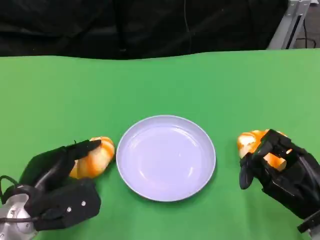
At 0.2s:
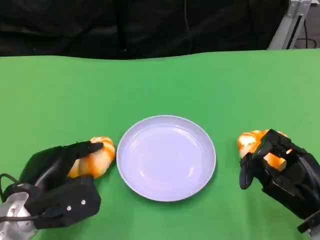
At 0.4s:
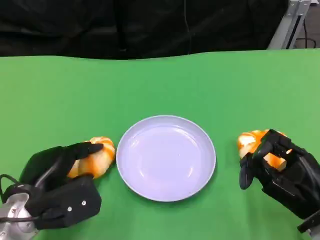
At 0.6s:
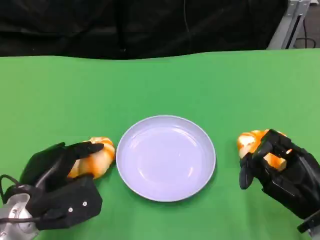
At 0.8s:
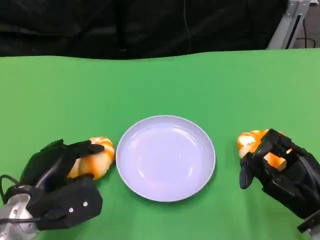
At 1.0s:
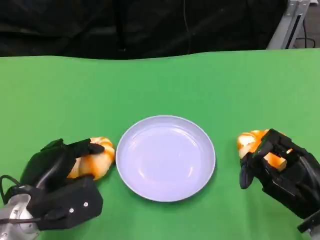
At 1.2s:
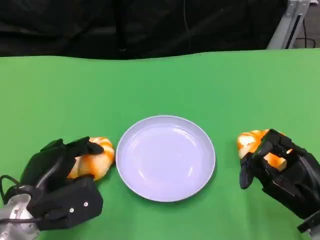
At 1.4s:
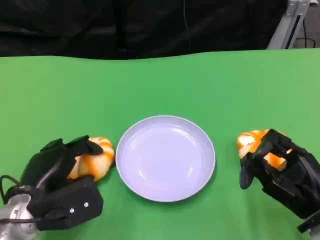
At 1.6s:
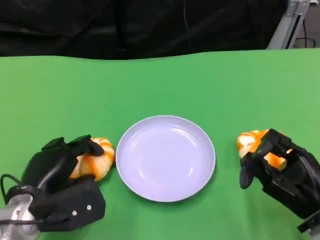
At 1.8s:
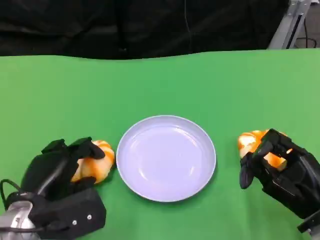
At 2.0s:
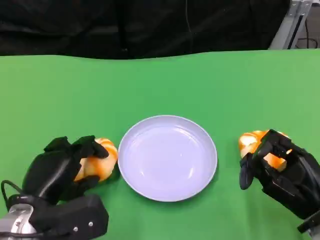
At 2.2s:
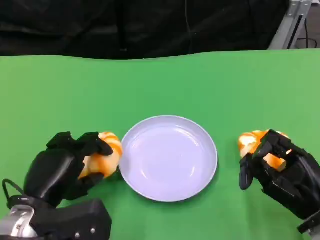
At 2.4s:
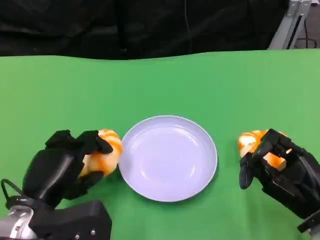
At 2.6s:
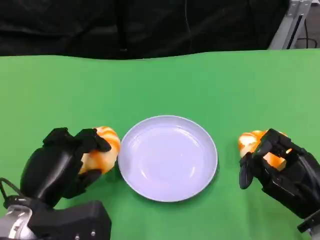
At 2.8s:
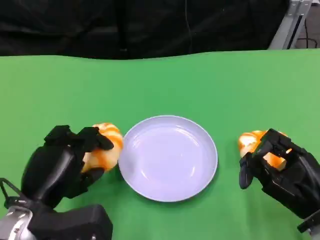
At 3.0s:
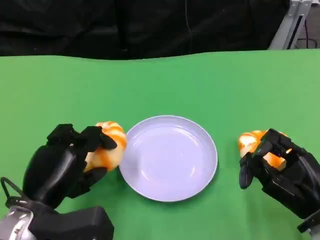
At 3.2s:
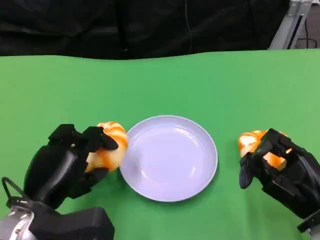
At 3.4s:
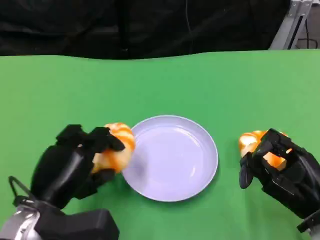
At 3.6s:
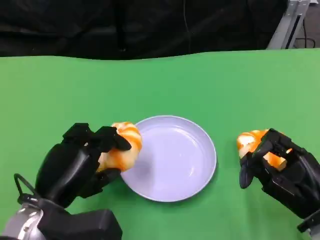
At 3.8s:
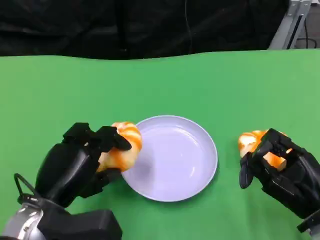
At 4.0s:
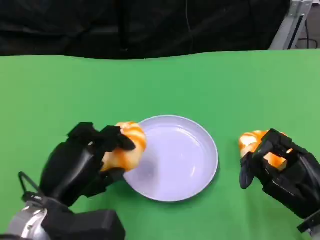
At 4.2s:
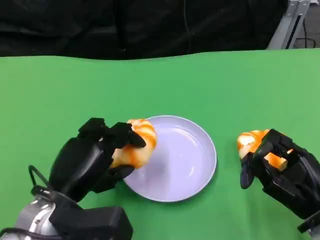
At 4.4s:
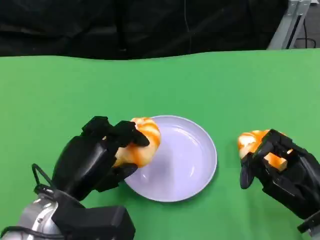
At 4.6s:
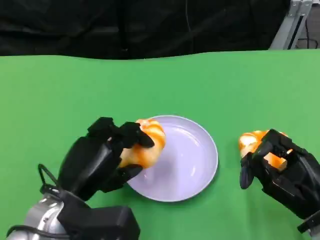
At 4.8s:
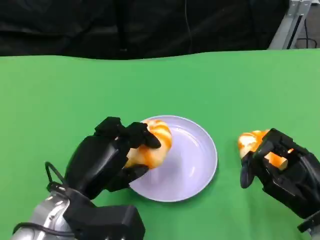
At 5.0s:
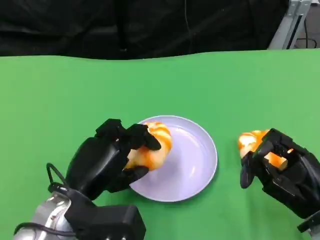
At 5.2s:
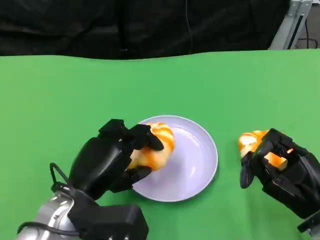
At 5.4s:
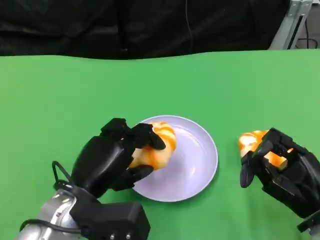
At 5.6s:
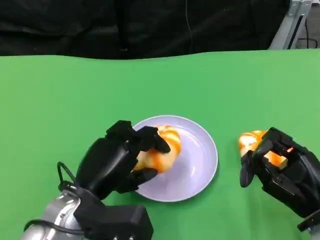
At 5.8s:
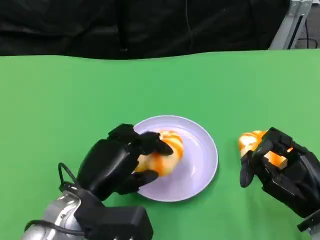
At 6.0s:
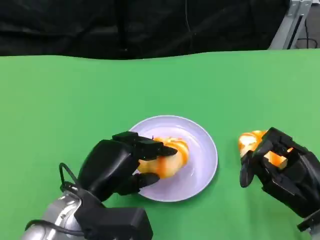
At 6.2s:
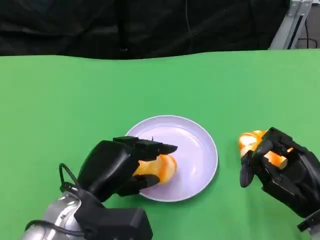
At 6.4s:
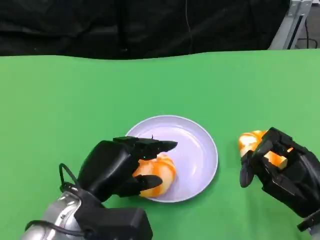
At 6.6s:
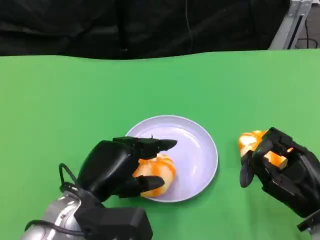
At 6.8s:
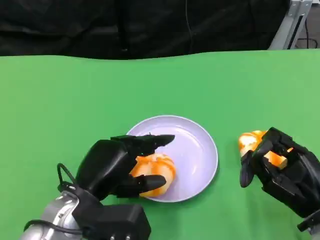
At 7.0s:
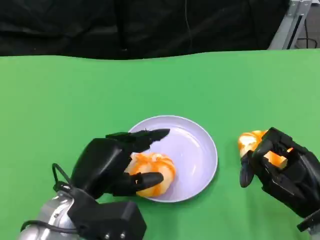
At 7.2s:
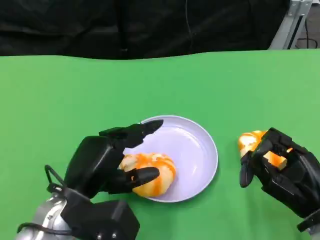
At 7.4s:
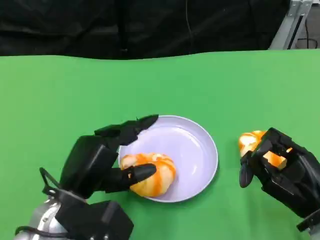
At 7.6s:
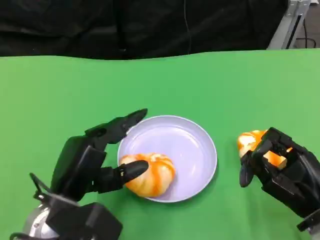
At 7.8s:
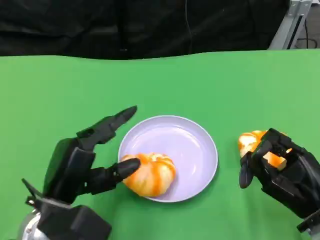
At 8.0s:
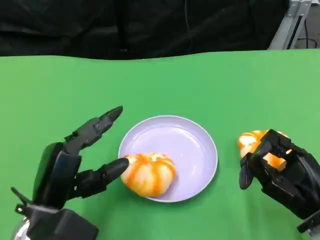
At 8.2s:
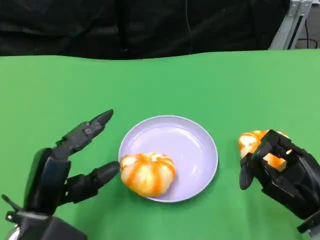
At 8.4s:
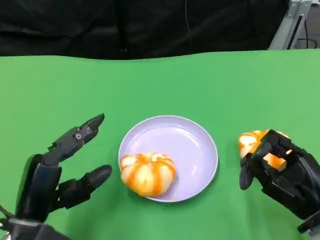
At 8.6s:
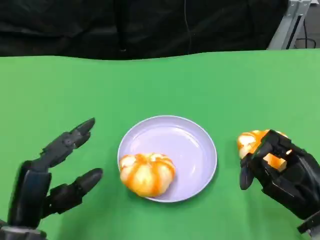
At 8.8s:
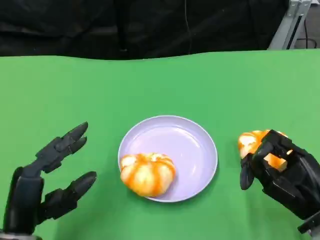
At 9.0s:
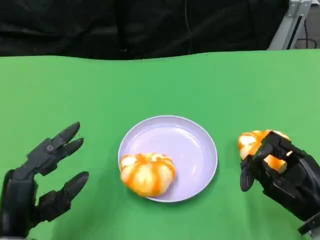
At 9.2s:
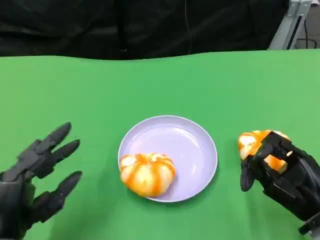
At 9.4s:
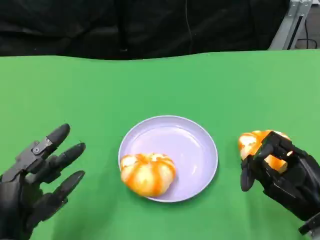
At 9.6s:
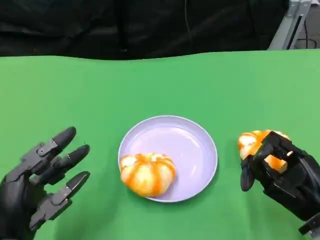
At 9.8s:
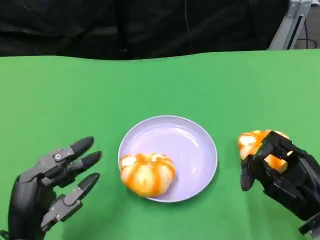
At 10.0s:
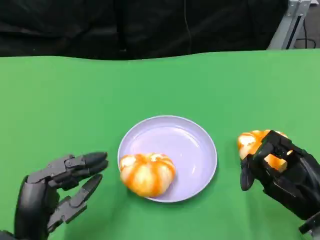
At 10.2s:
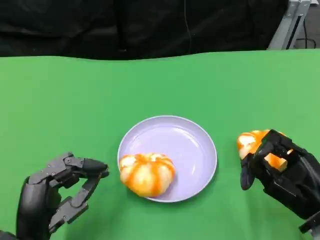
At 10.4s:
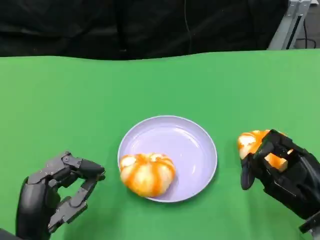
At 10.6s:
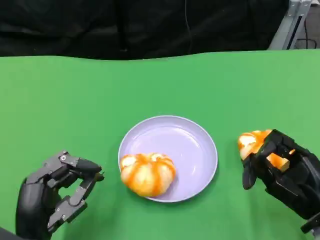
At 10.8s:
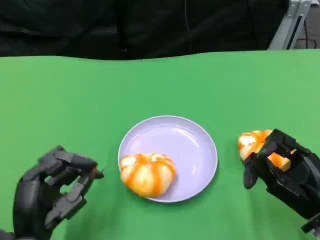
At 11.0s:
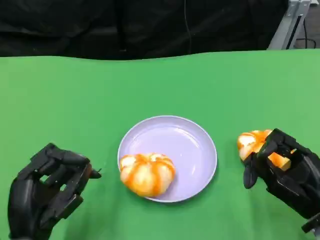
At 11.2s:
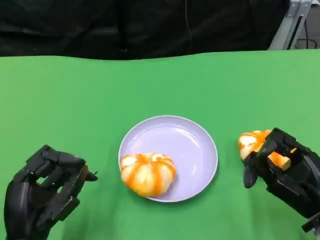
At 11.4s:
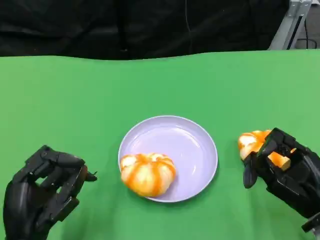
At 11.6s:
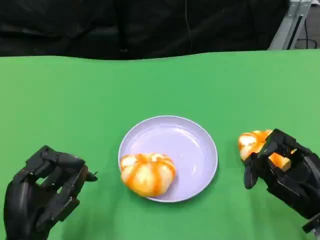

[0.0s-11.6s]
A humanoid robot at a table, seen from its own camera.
Task of the whole recording: Grasp the bread from the table and place it into the plate.
0.0s to 1.4s: Neither hand changes place.
1.4s to 2.8s: There are only small adjustments of the hands.
2.8s to 7.2s: The hands make only small movements.
7.2s to 8.8s: The left hand heads to the left, covering roughly 5 cm.
10.2s to 11.6s: The hands make only small movements.

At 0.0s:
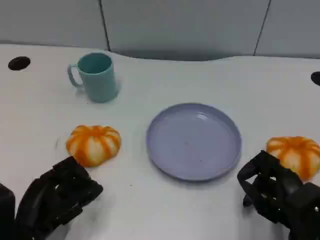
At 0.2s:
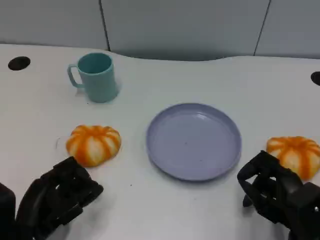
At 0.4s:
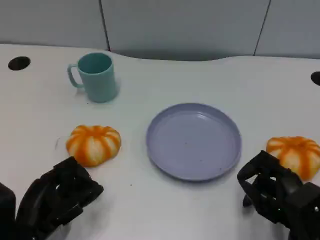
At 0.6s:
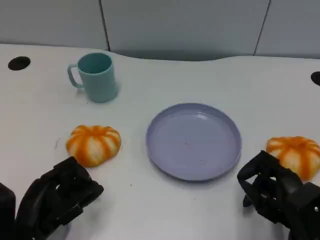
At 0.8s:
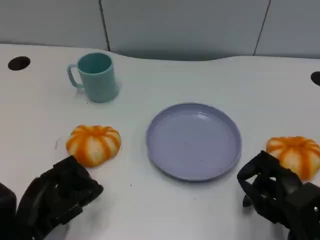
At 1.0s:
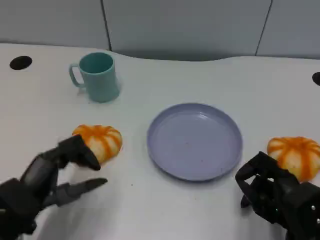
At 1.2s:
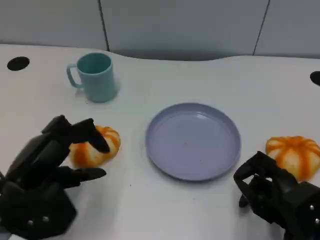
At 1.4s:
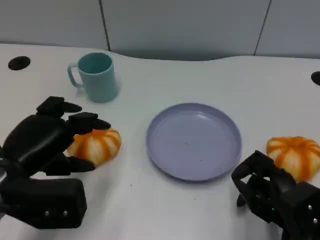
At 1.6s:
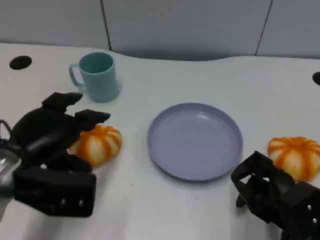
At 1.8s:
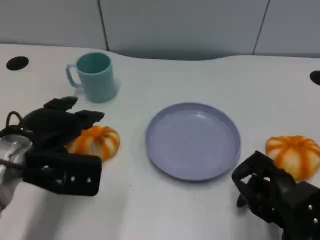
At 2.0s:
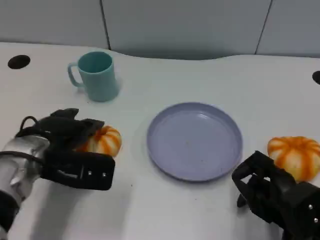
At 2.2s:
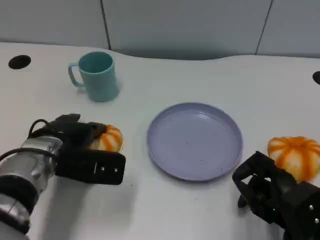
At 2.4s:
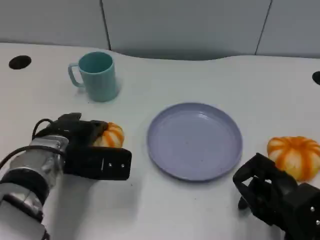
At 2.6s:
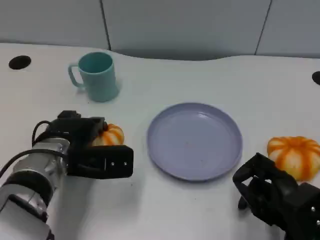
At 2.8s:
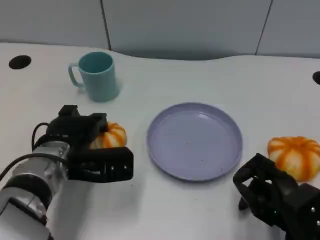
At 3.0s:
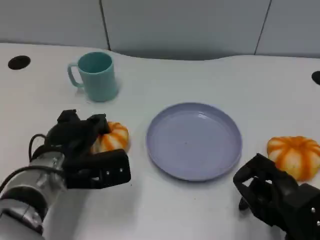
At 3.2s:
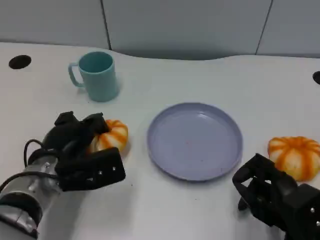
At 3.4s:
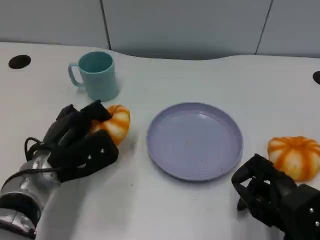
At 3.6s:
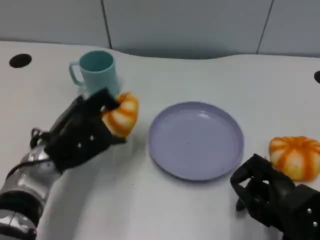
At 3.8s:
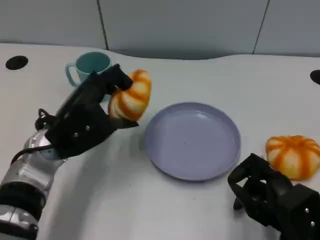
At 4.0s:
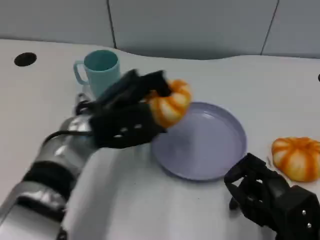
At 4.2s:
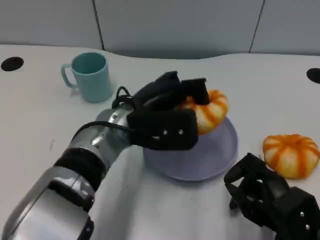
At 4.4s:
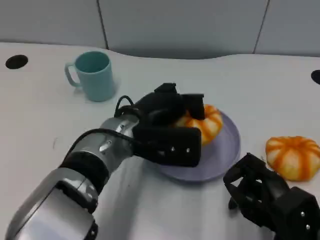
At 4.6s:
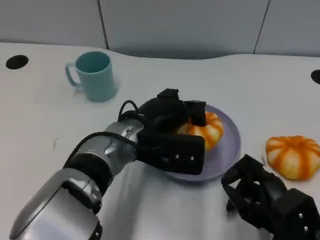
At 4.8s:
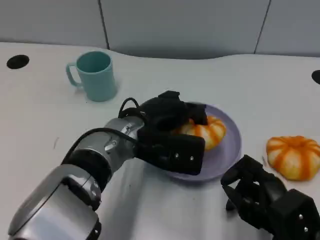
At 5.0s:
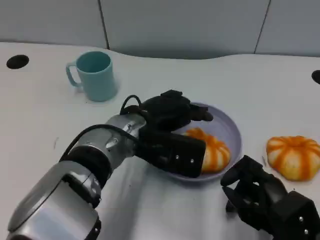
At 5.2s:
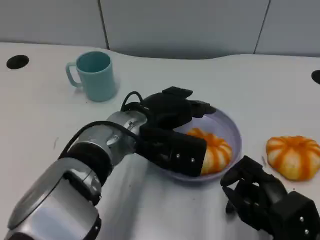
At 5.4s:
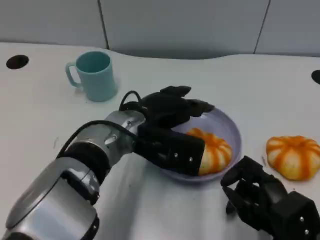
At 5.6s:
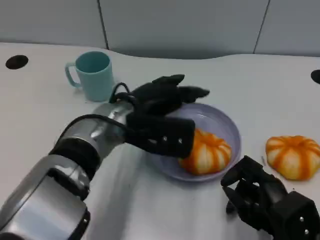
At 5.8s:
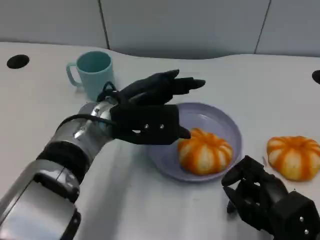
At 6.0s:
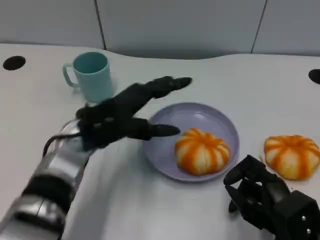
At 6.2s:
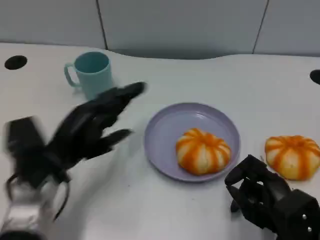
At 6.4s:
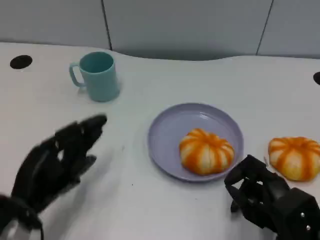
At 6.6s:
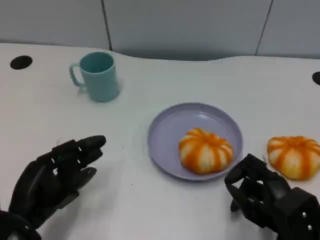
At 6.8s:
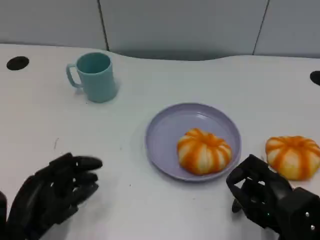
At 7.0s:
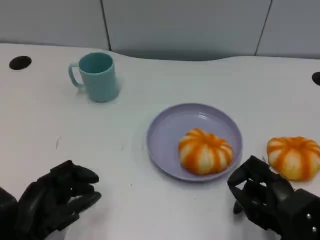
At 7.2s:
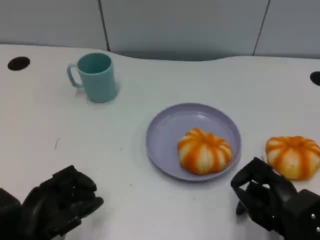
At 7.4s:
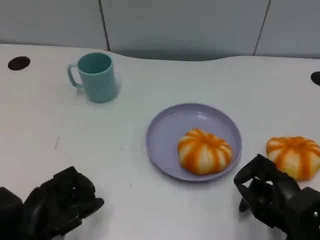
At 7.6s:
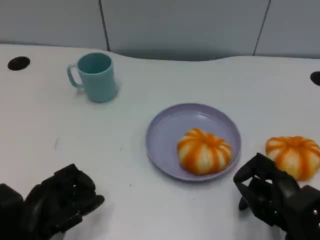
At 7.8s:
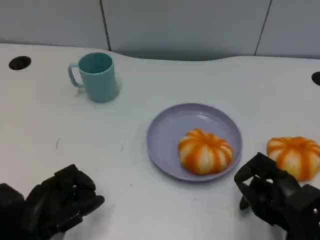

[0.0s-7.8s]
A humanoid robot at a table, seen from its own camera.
Task of the whole recording: Grasp the bread from the table and place it into the plate.
0.0s to 1.6s: The left hand is displaced upward and forward by some 15 cm.
1.6s to 3.2s: The left hand shifts some 10 cm downward.
3.2s to 4.6s: The left hand goes about 15 cm to the right and upward.
4.6s to 6.2s: The left hand is displaced to the left by roughly 15 cm.
6.2s to 7.8s: The left hand goes roughly 10 cm backward and downward.

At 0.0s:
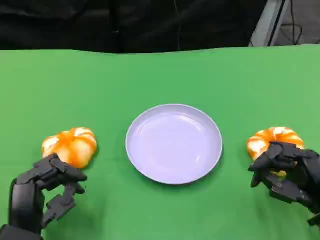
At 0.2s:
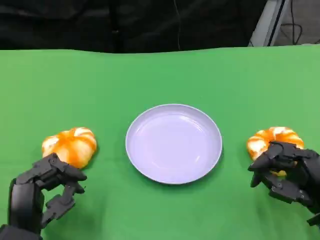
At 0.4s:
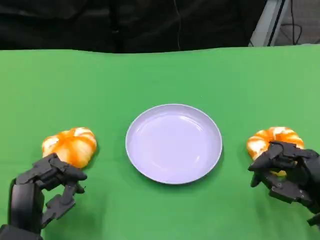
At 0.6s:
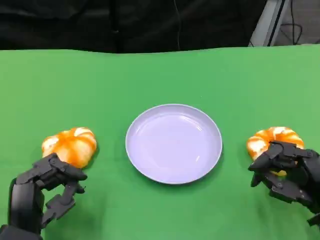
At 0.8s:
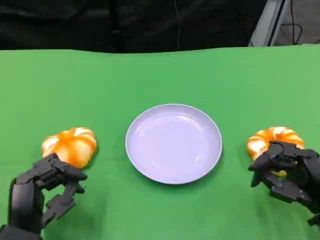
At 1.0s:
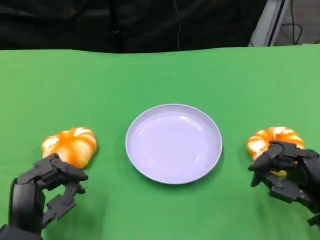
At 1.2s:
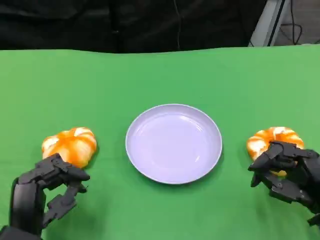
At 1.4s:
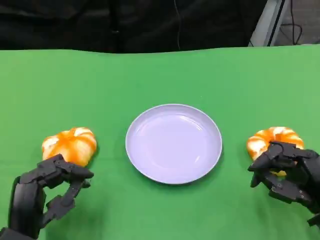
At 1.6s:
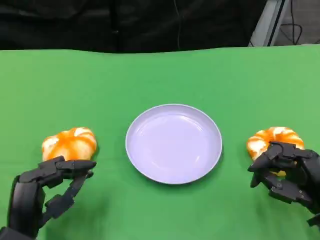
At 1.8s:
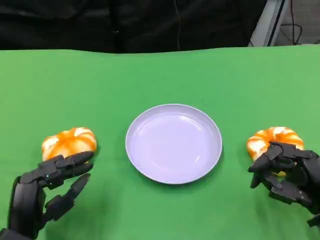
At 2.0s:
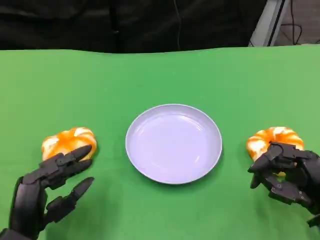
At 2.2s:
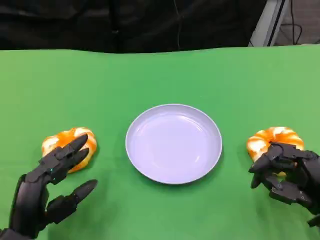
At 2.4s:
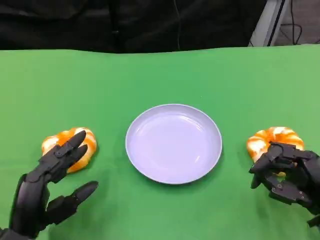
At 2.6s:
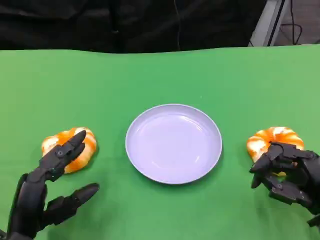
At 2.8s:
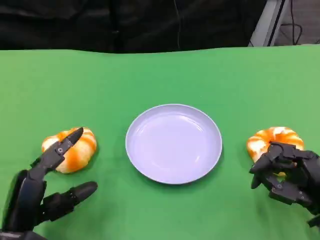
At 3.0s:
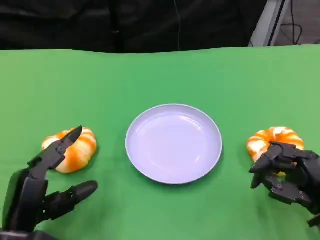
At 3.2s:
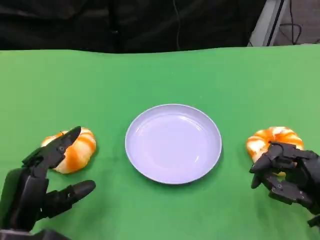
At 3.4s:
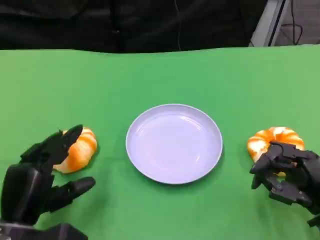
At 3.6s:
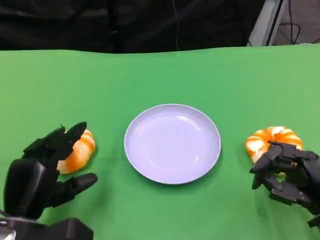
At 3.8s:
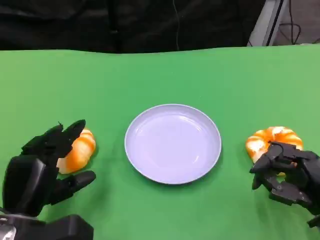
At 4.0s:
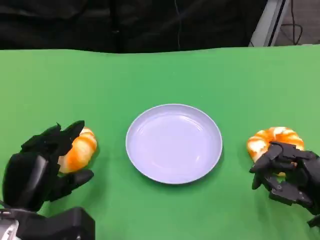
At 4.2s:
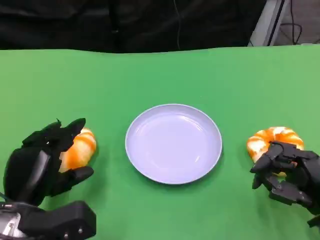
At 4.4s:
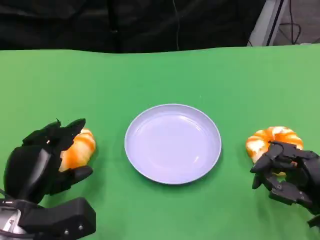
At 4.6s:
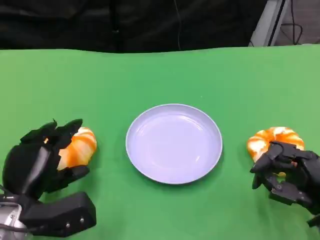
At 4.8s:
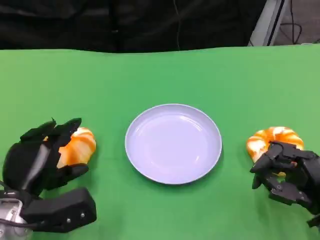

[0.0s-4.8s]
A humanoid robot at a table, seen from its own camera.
Task of the whole recording: Grasp the bread from the table and place it into the plate.
0.0s to 1.6s: The hands make only small movements.
3.2s to 4.8s: The left hand travels forward by some 5 cm.
